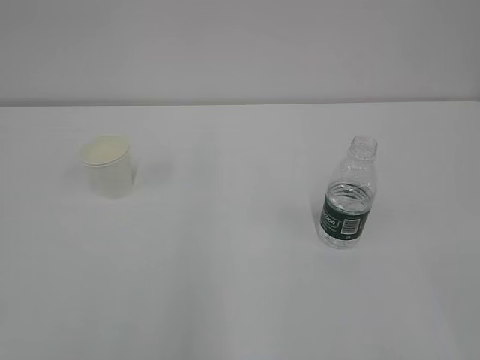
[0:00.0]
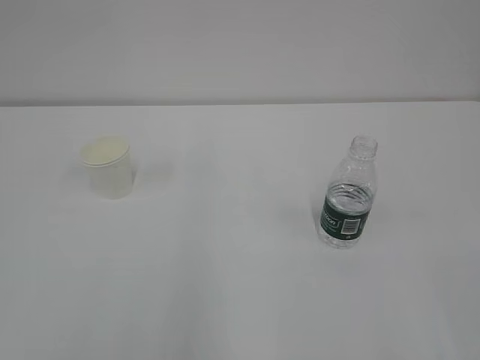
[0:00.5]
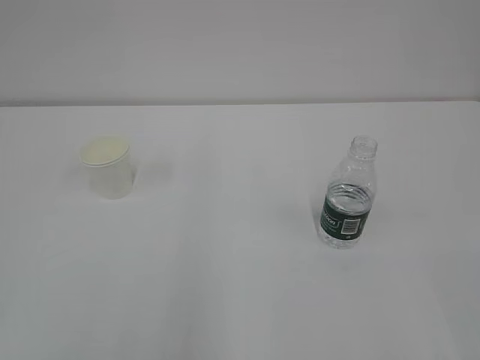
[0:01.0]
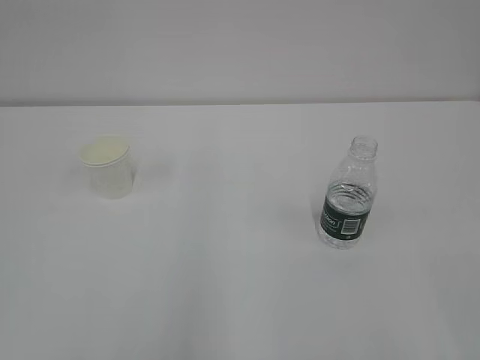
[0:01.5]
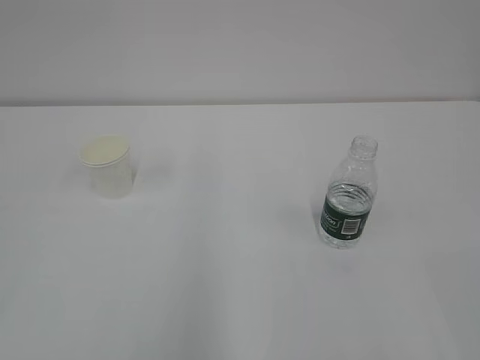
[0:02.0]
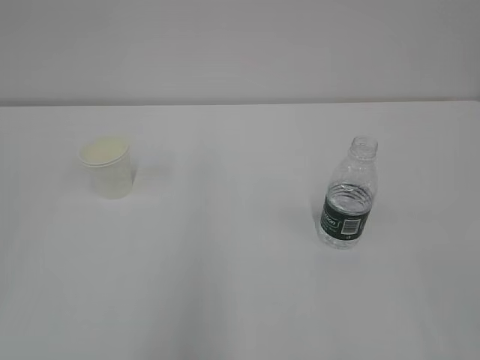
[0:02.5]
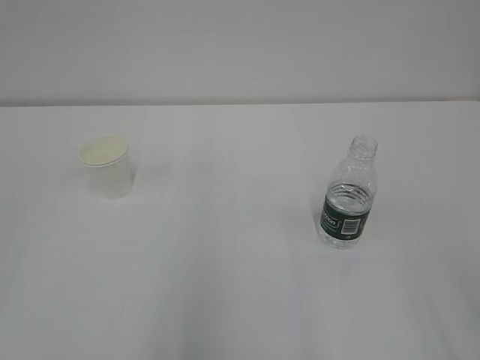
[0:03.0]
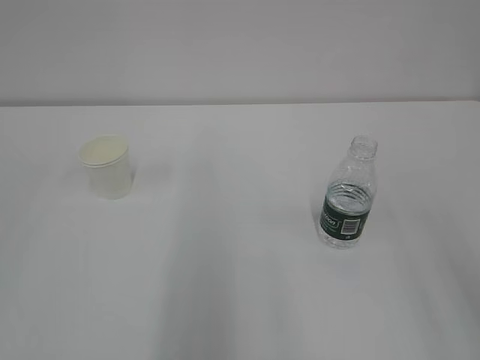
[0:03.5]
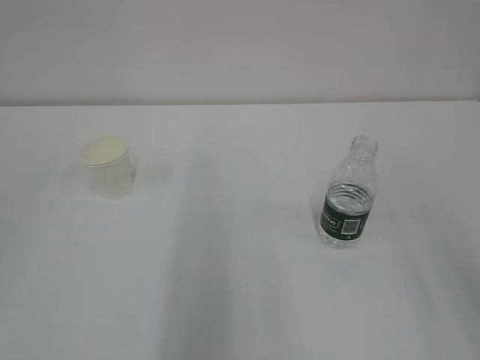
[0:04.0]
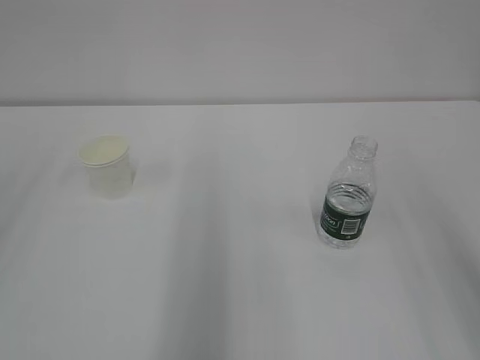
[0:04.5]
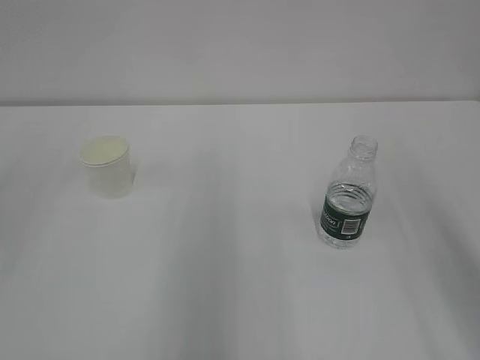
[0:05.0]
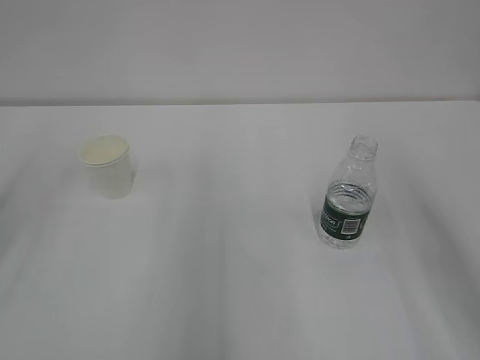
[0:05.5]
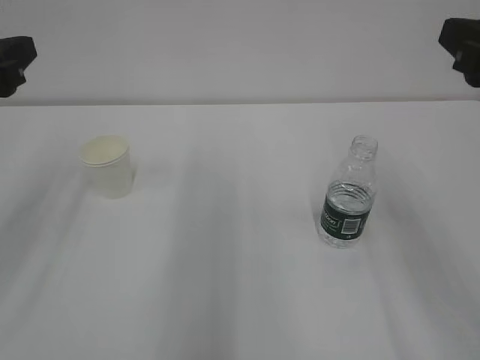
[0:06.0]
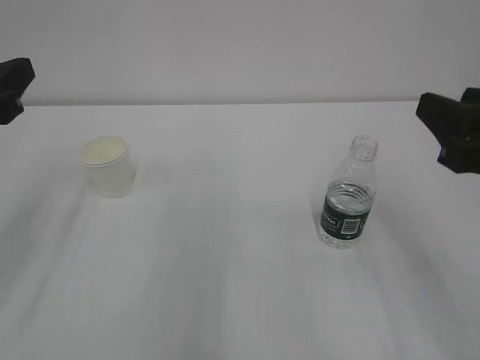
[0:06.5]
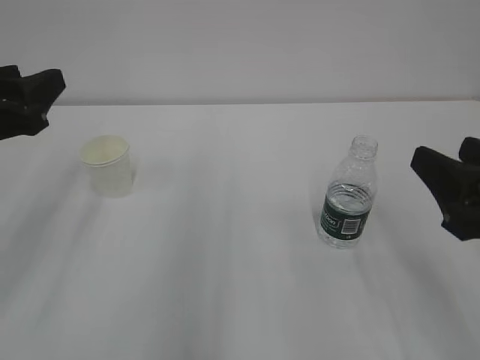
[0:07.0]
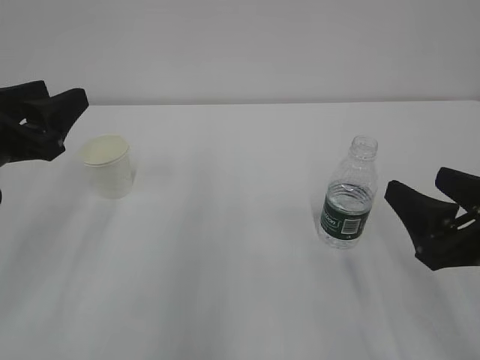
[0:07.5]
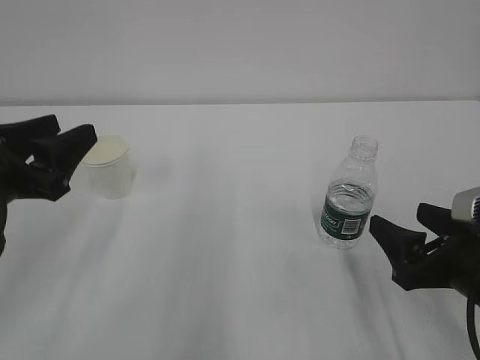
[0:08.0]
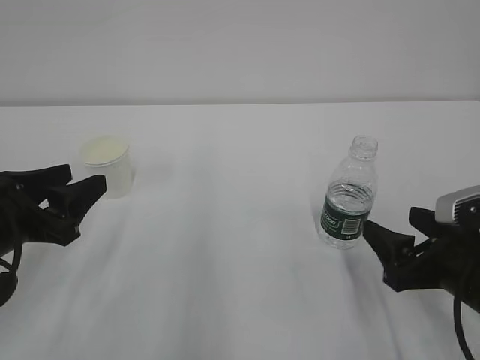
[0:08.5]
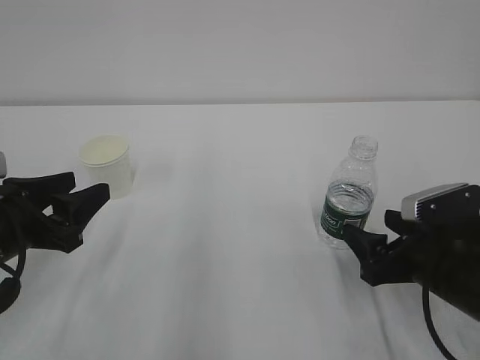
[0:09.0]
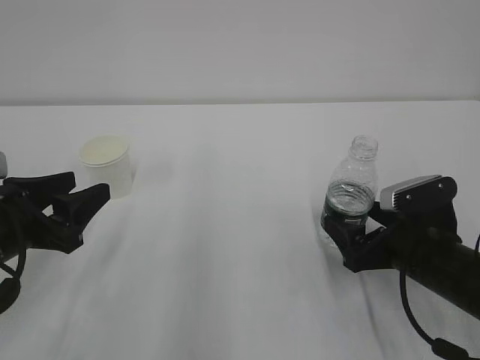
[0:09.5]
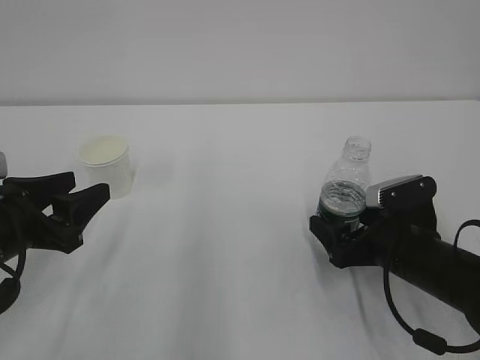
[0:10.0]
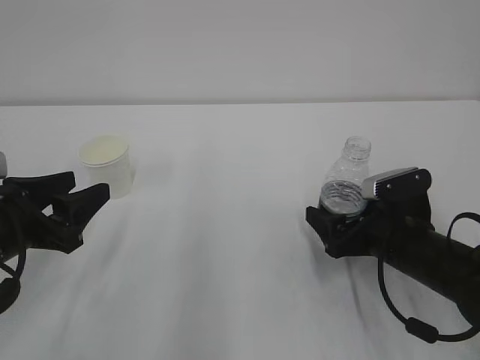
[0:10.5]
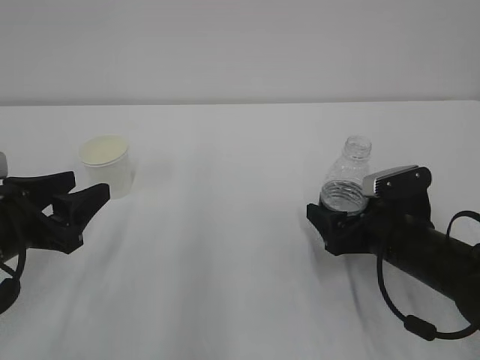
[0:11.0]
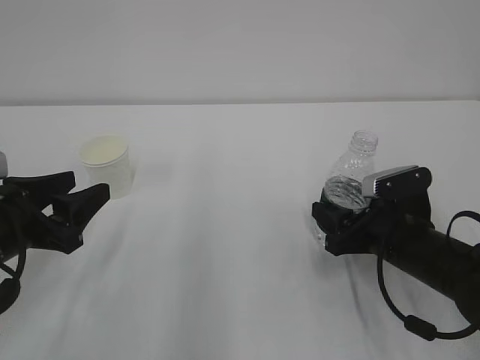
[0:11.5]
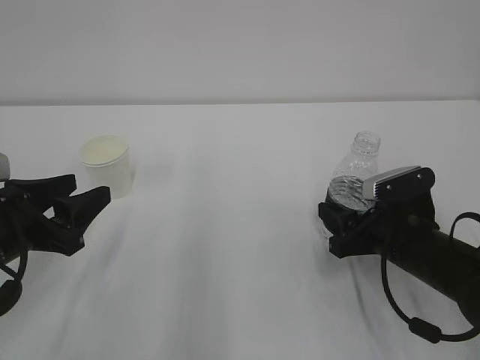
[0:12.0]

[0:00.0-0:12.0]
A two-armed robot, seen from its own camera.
0:04.0 to 0:06.0: The grippers both shift forward and downward by roughly 15 cm. The left gripper opens its fingers.
0:06.0 to 0:08.0: The left gripper moves downward, approximately 10 cm, while the right gripper is displaced downward by approximately 20 cm, and opens.
0:08.0 to 0:10.0: The left gripper shifts by some 5 cm, while the right gripper shifts some 10 cm forward and downward.
0:10.0 to 0:12.0: The right gripper closes its fingers.

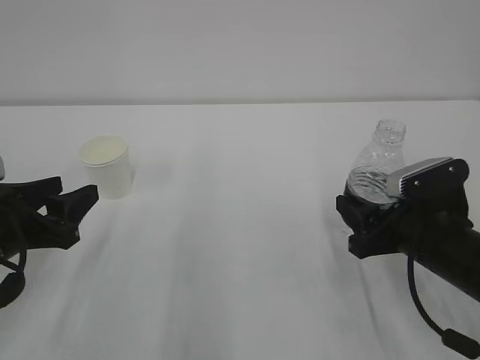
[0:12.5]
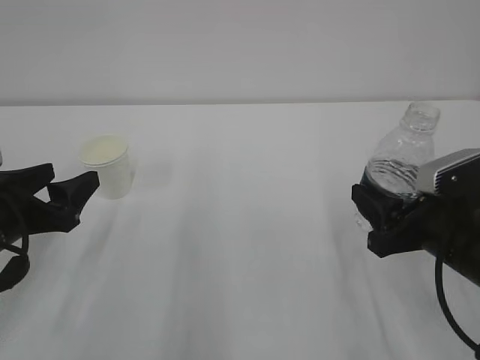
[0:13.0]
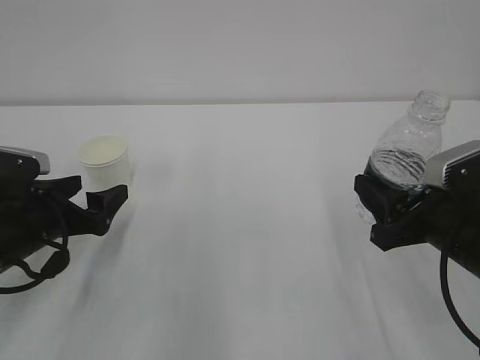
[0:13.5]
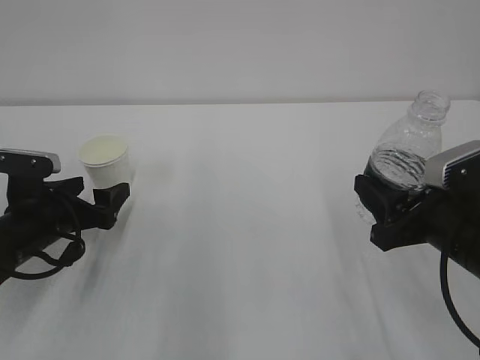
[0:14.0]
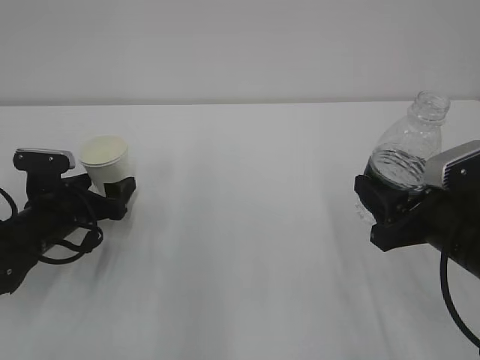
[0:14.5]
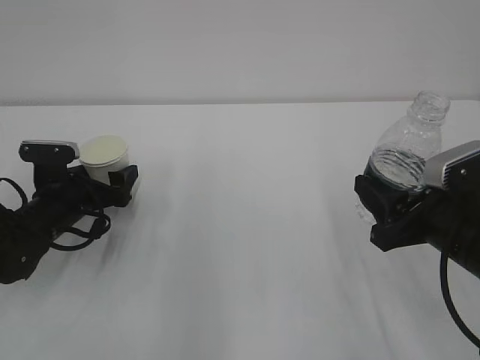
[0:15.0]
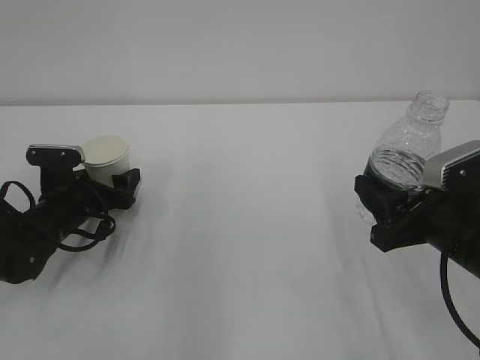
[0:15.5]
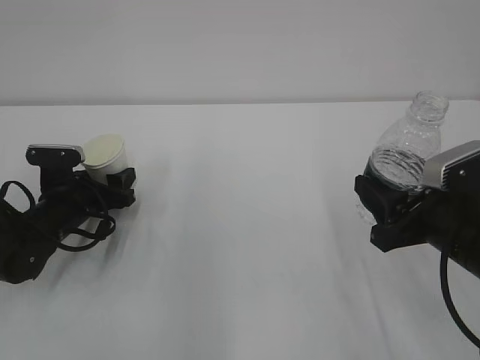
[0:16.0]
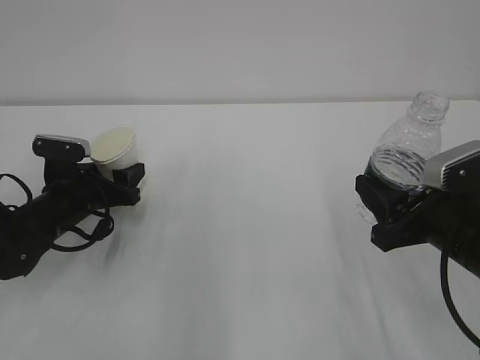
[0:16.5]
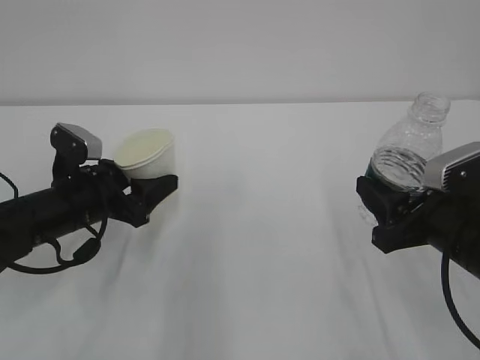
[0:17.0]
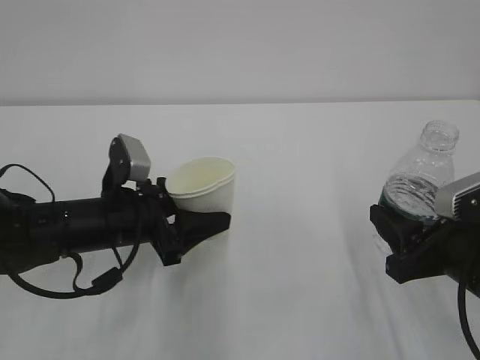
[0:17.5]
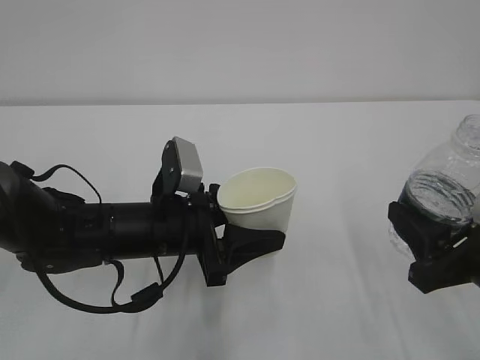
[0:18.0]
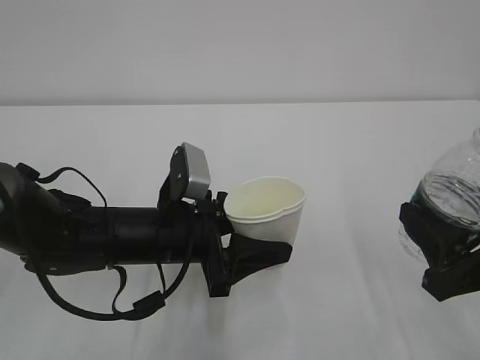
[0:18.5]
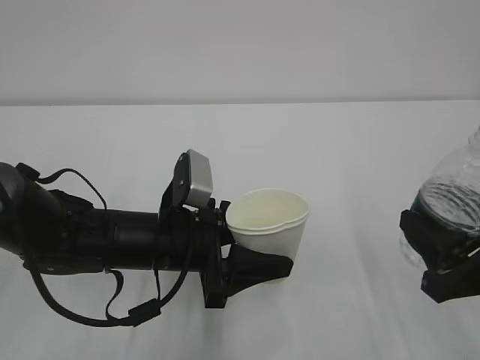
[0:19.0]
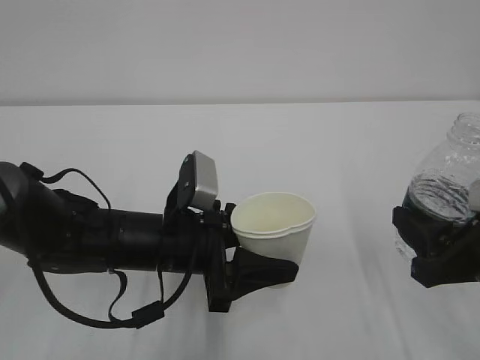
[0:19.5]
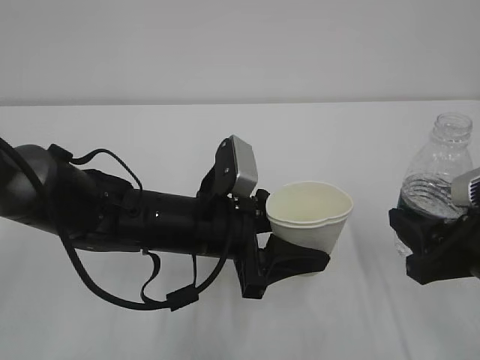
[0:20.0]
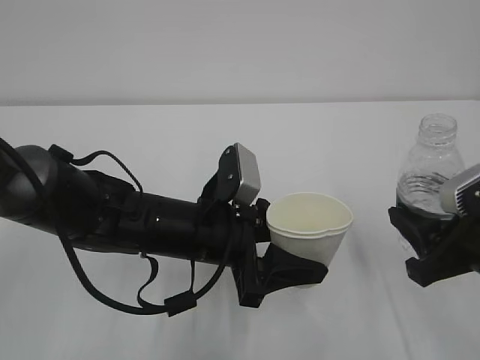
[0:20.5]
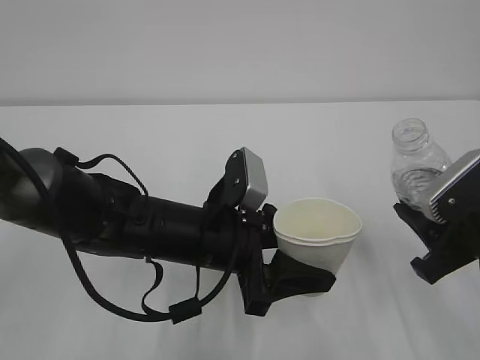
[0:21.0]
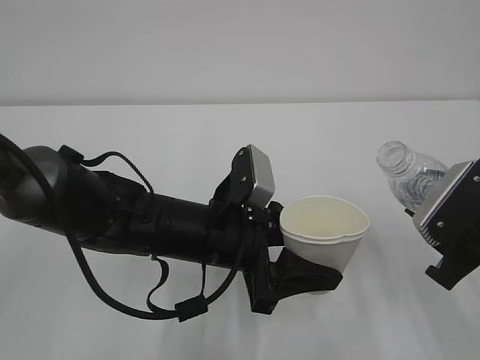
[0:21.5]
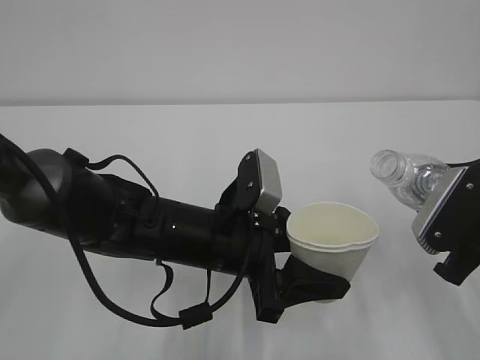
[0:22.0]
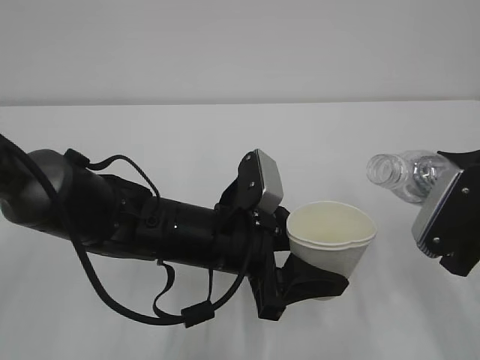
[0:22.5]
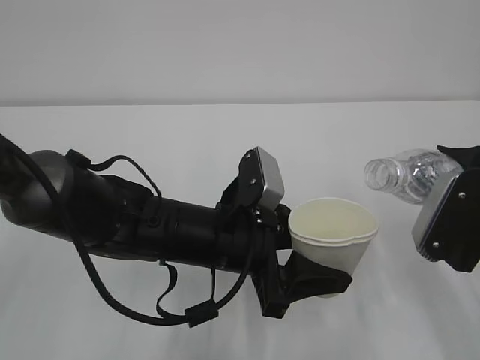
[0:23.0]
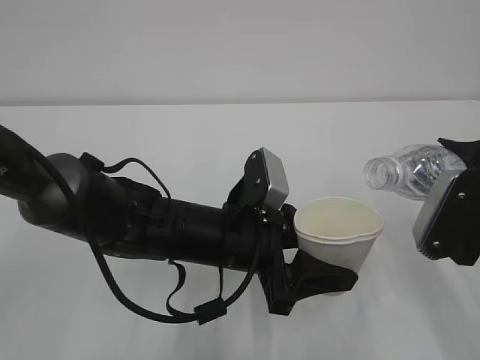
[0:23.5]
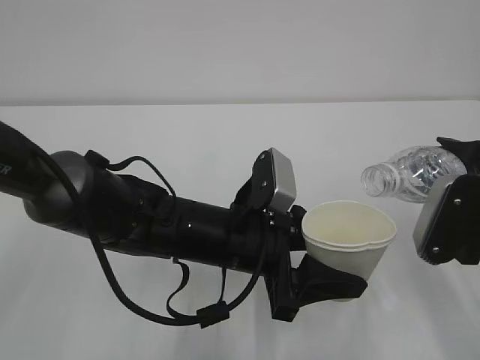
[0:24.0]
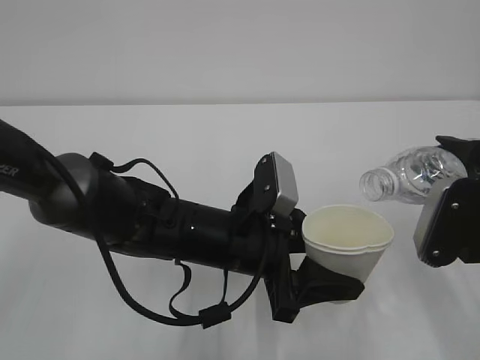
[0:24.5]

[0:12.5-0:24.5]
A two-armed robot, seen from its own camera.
0:12.5 to 0:14.5: The left gripper goes about 15 cm forward and downward, and opens up.
0:14.5 to 0:16.5: The left gripper closes.
0:16.5 to 0:18.5: The right gripper heads backward, covering roughly 5 cm, while the left gripper heads to the right and backward, covering about 15 cm.
0:18.5 to 0:20.5: The grippers make only small movements.
0:22.5 to 0:24.5: The grippers move only a little.

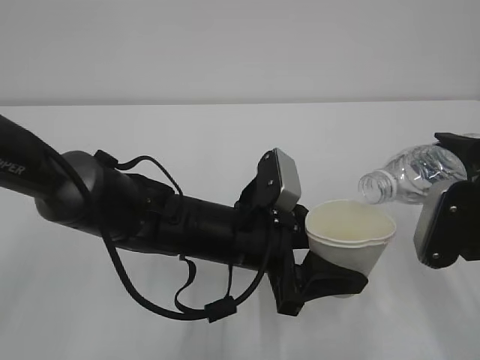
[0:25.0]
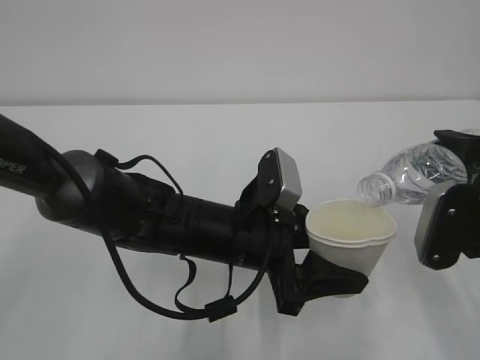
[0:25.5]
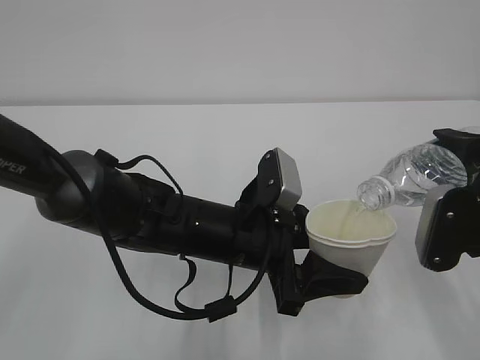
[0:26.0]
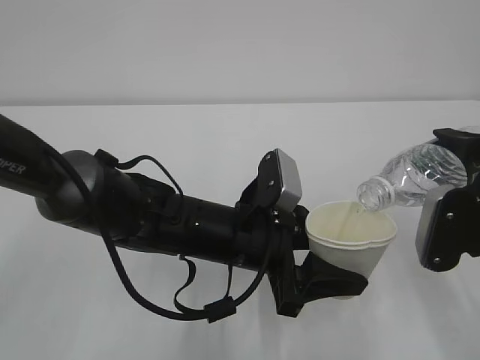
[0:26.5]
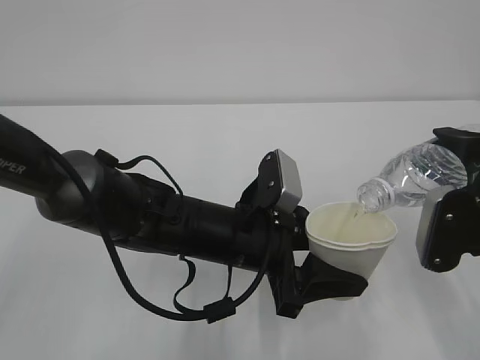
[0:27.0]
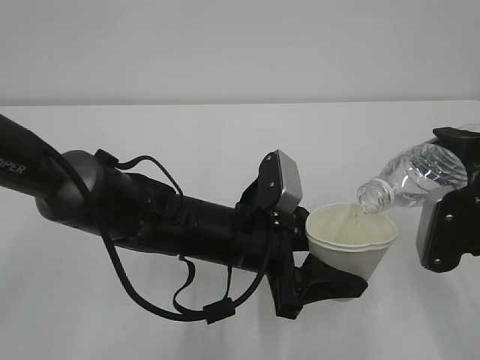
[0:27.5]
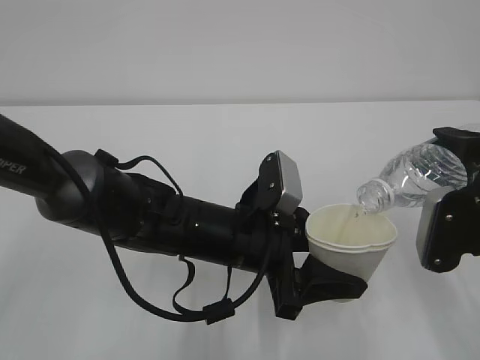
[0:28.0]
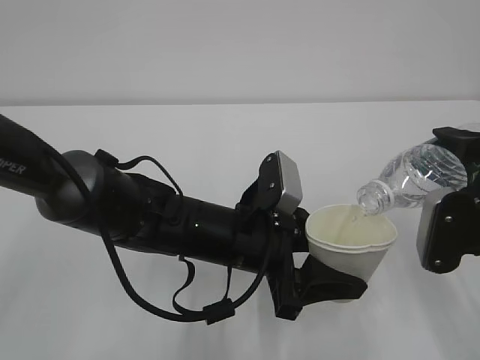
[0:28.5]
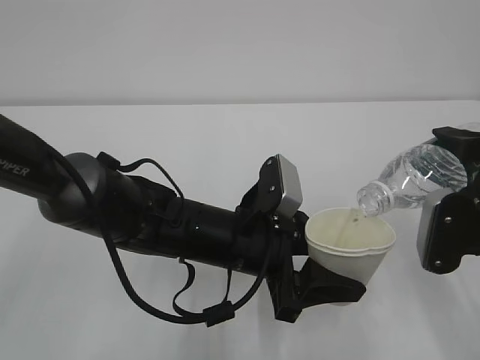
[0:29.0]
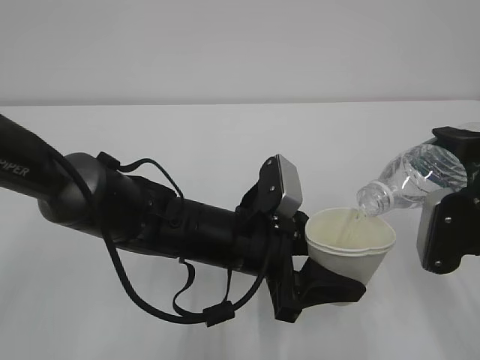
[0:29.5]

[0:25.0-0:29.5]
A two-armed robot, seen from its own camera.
0:25.0 to 0:27.0: The grippers move only a little.
0:27.0 to 0:29.5: Both grippers stay put.
